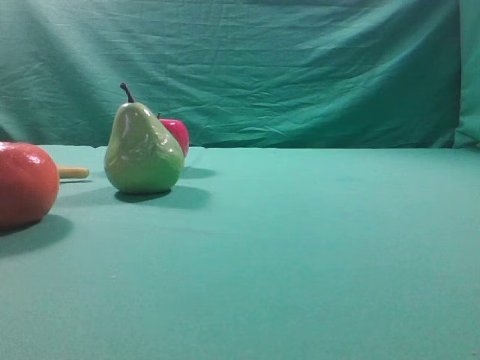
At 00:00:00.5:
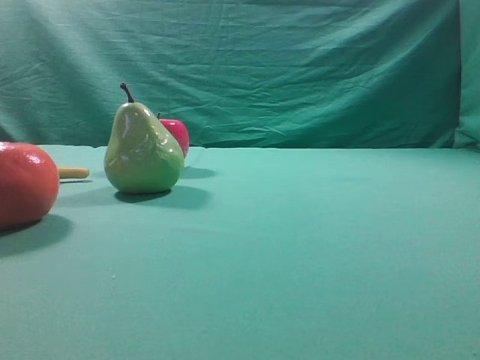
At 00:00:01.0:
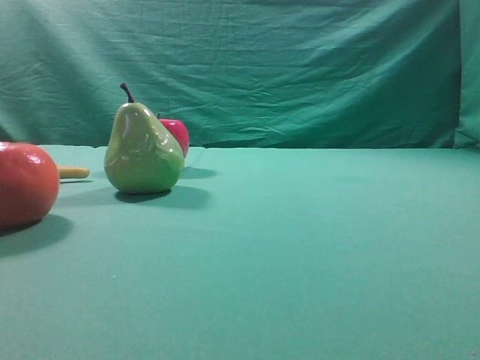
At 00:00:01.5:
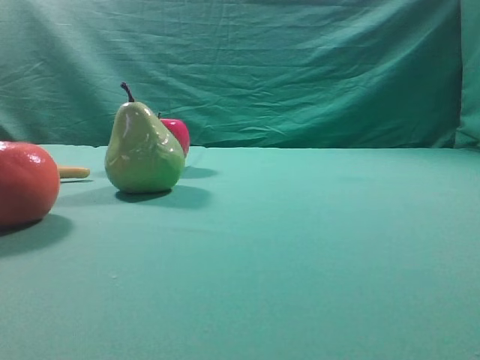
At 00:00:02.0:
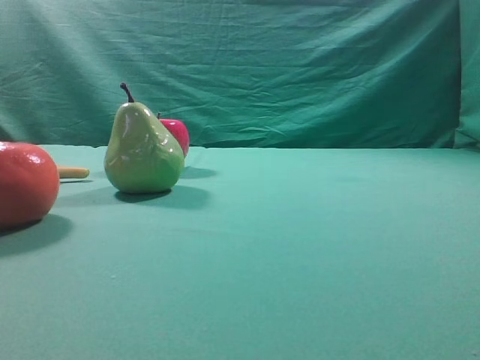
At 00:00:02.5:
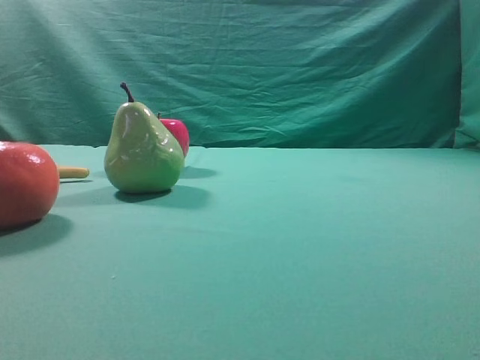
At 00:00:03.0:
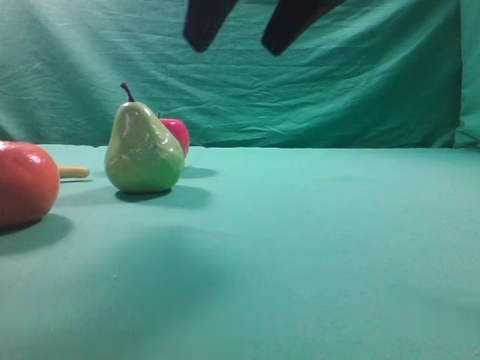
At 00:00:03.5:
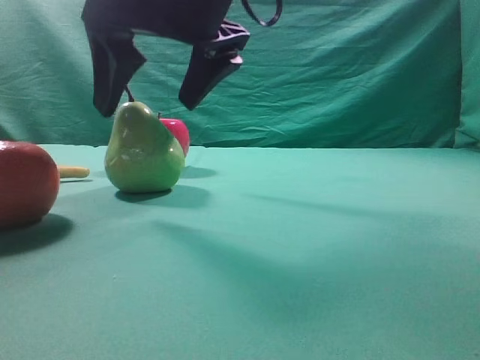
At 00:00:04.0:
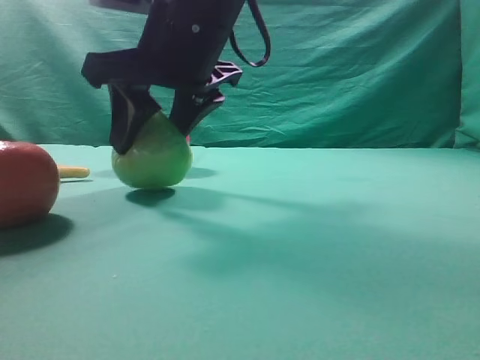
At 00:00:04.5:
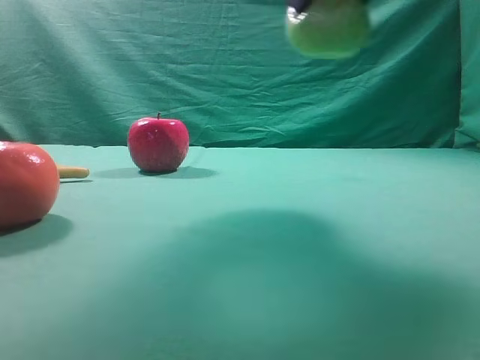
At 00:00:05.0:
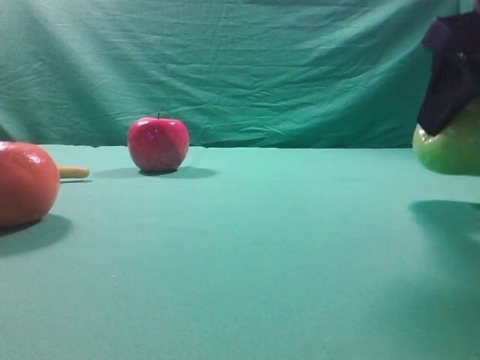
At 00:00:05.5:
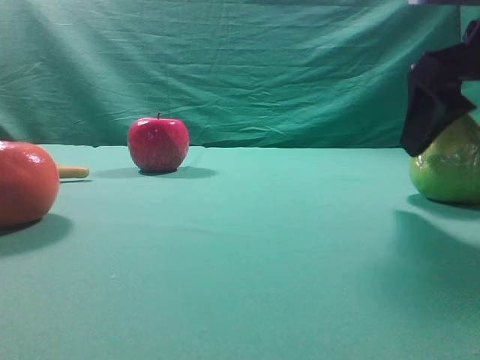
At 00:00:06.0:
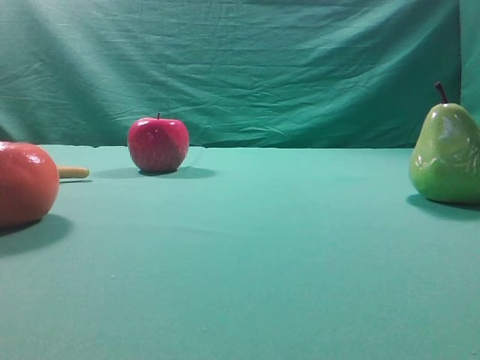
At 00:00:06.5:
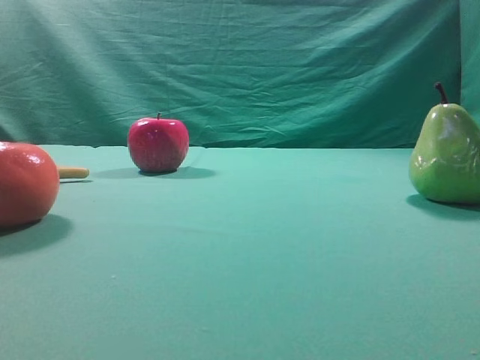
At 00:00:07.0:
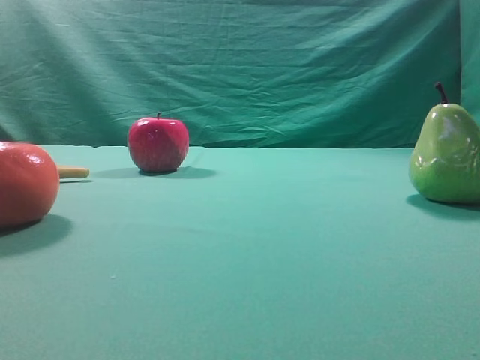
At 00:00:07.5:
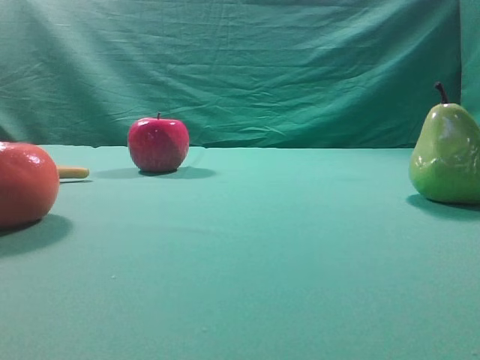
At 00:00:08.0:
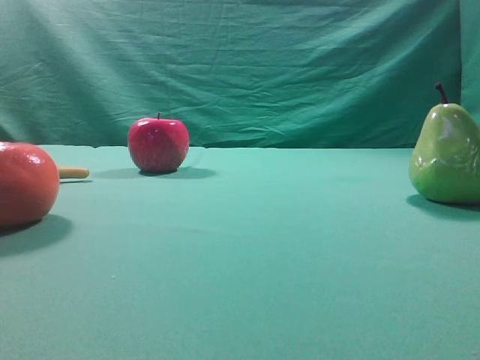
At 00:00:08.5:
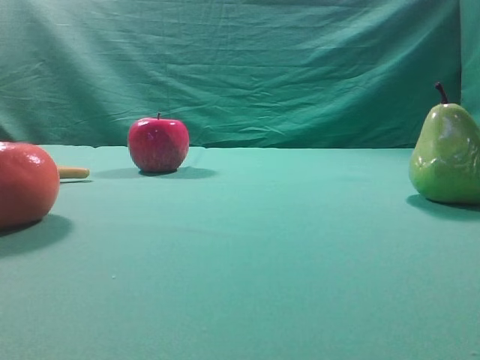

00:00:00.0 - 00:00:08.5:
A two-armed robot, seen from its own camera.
Task of the whole recording: Grasp the pear and place it on one side of the table.
Step, 00:00:00.0 - 00:00:04.0: Grasp the high-fiber fruit.
Step, 00:00:04.5 - 00:00:05.5: Place it on the right side of the table.

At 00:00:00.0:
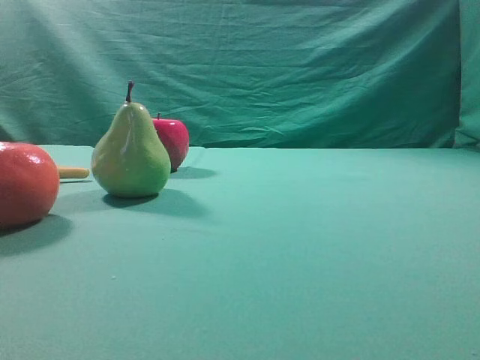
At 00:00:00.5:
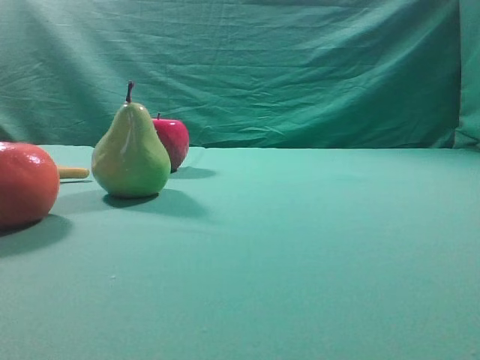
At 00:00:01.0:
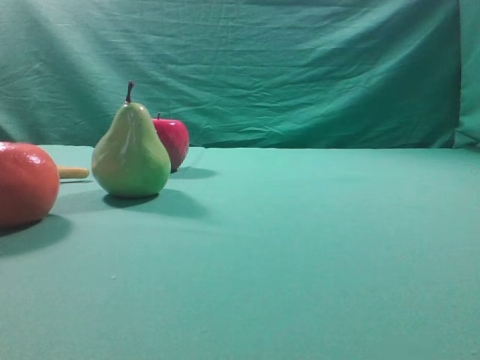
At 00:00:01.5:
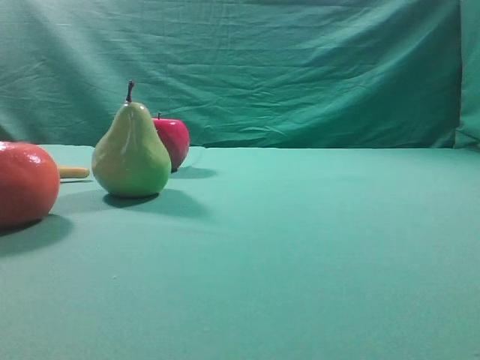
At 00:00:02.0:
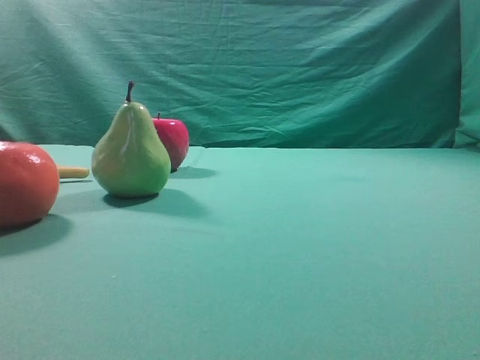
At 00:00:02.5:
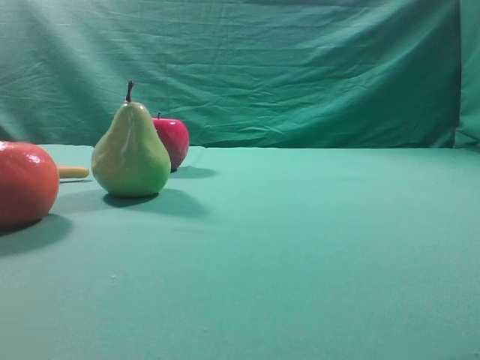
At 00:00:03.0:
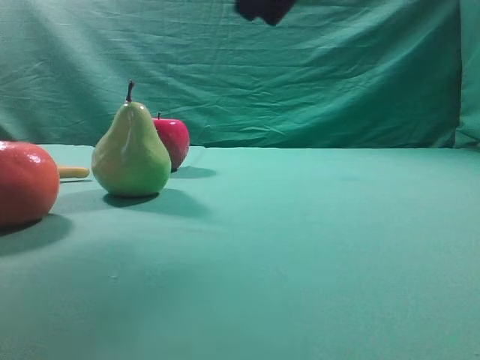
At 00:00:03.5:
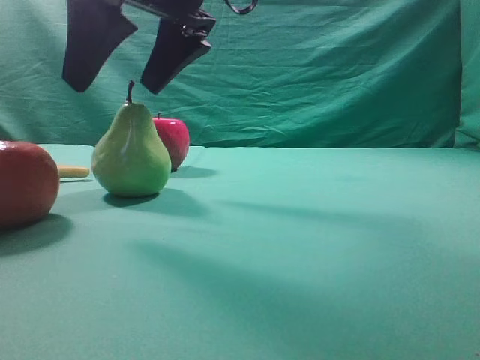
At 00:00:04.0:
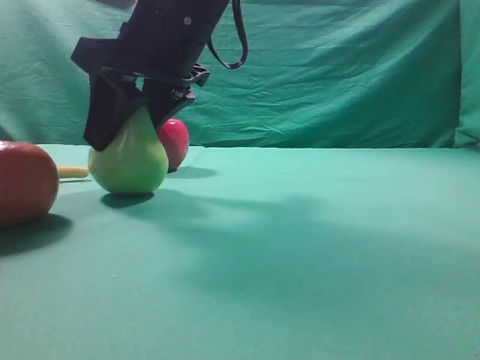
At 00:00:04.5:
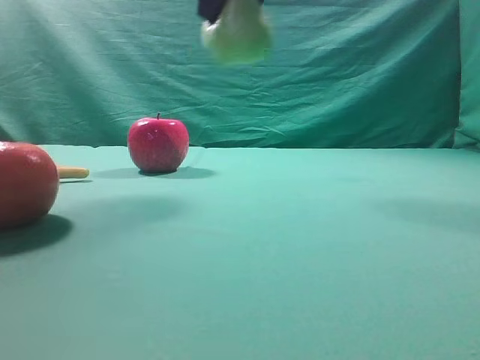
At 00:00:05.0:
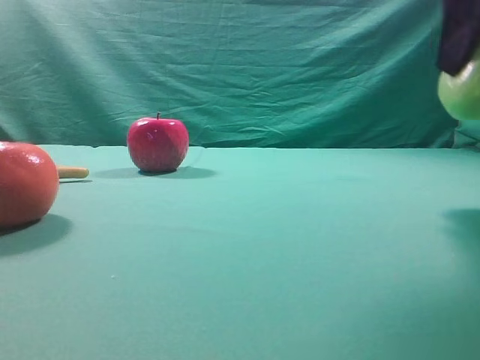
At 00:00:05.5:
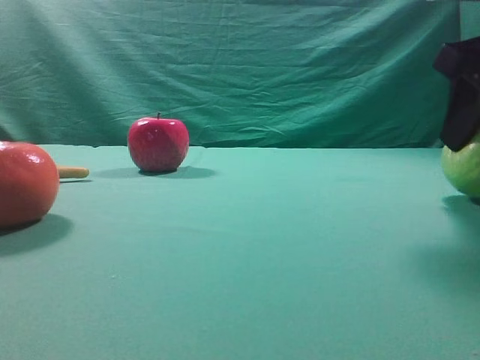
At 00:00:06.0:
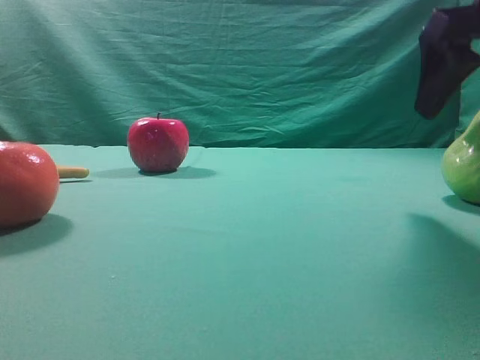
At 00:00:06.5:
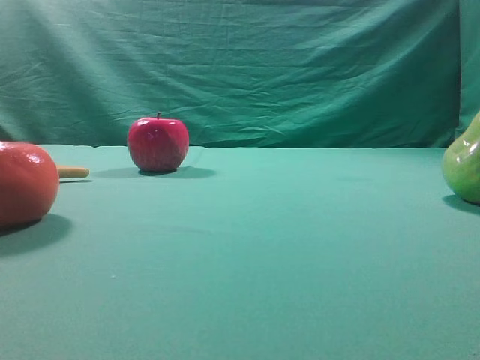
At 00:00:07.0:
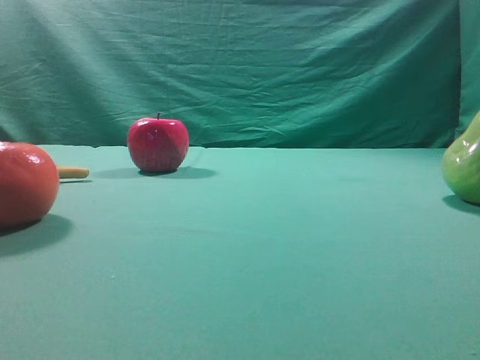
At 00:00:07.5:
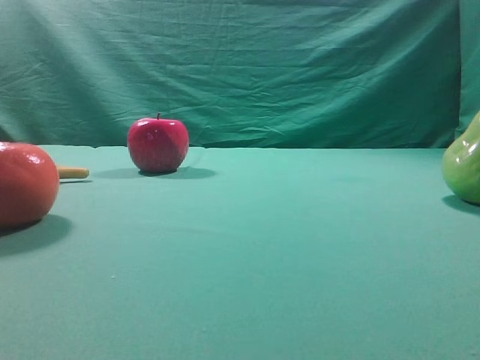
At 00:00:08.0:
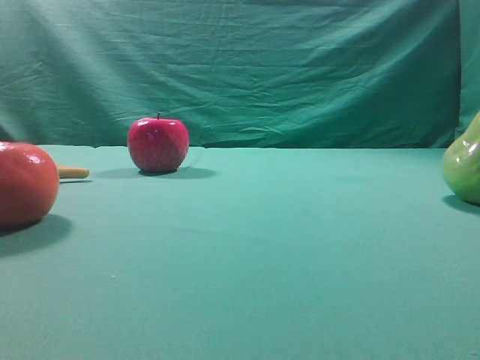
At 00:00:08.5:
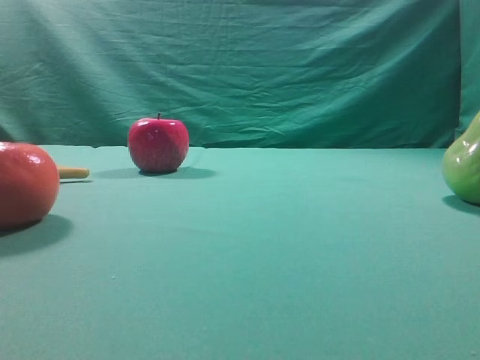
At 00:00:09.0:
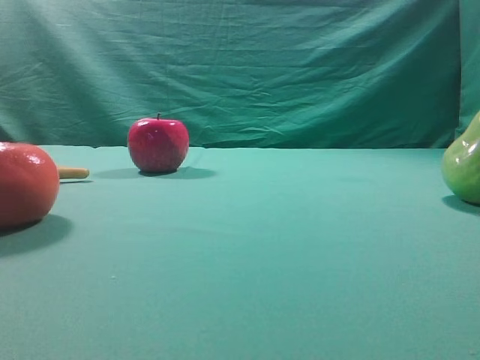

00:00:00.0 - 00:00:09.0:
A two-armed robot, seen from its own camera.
Task of the whole recording: Grasp the pear and place it on one side of the table.
Step, 00:00:00.0 - 00:00:04.0: Grasp the high-fiber fruit.
Step, 00:00:04.5 - 00:00:06.0: Place it on the right side of the table.
